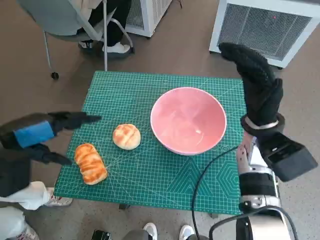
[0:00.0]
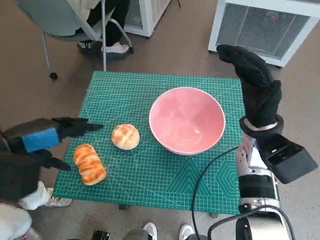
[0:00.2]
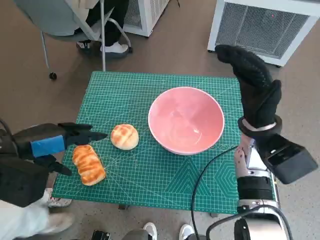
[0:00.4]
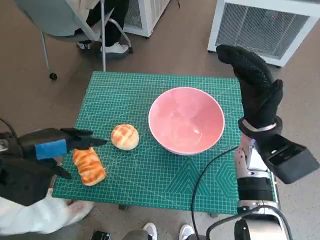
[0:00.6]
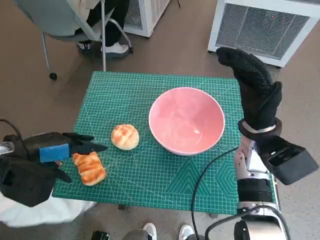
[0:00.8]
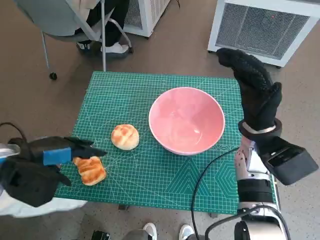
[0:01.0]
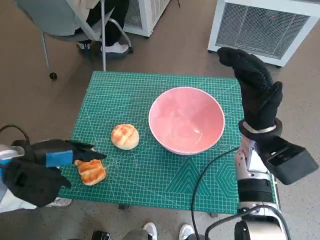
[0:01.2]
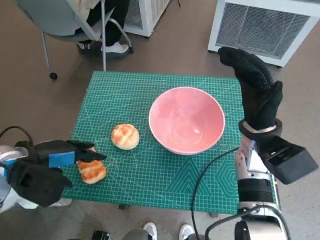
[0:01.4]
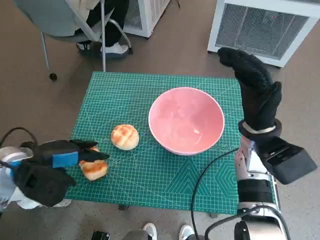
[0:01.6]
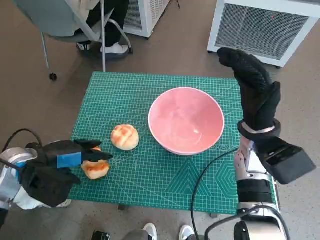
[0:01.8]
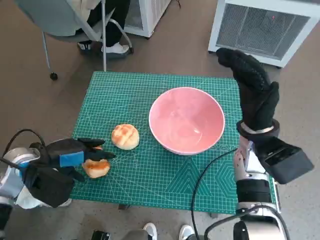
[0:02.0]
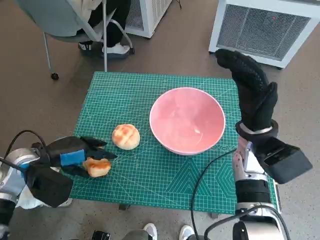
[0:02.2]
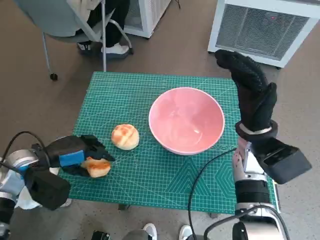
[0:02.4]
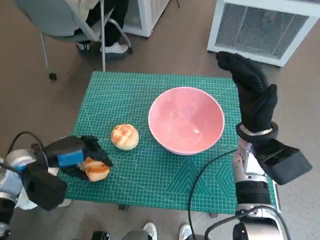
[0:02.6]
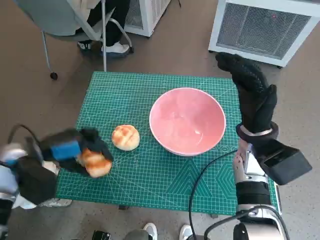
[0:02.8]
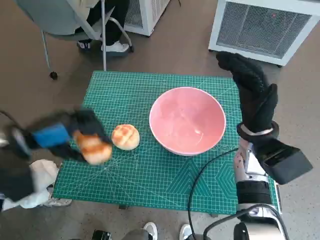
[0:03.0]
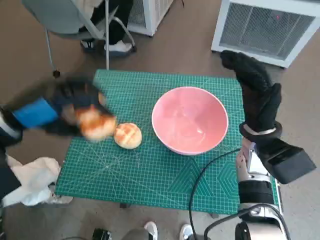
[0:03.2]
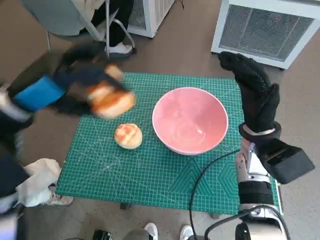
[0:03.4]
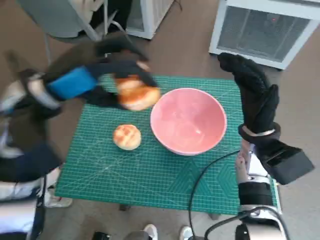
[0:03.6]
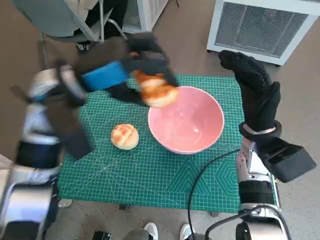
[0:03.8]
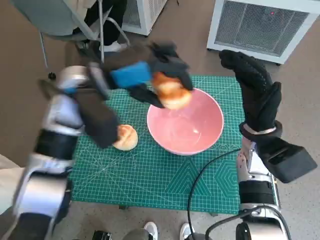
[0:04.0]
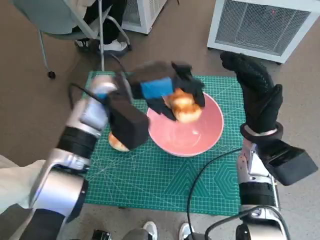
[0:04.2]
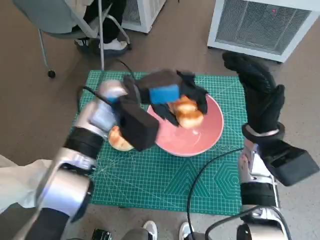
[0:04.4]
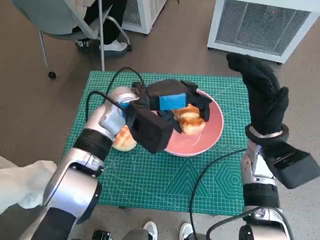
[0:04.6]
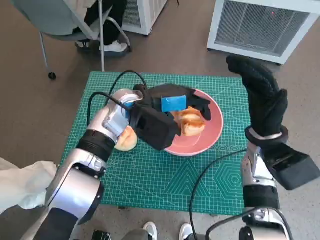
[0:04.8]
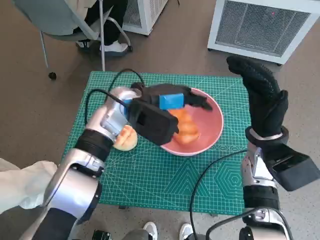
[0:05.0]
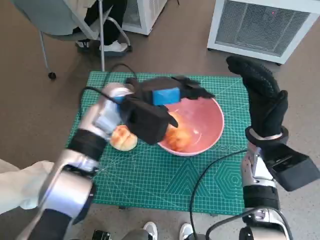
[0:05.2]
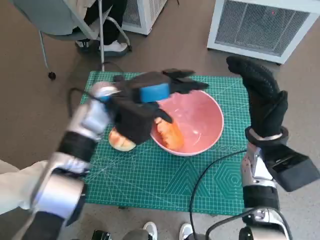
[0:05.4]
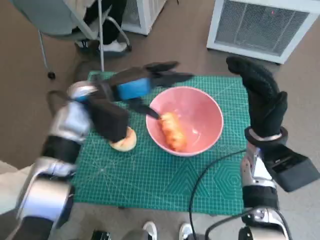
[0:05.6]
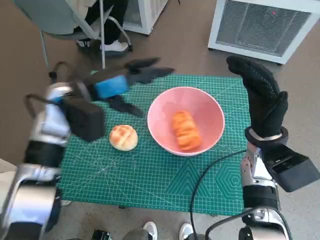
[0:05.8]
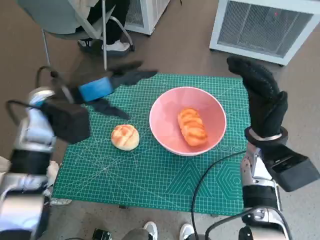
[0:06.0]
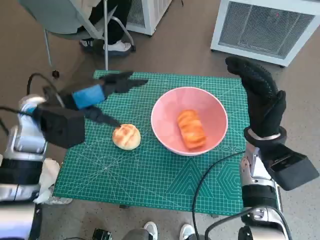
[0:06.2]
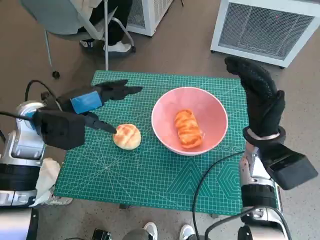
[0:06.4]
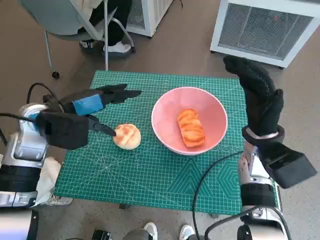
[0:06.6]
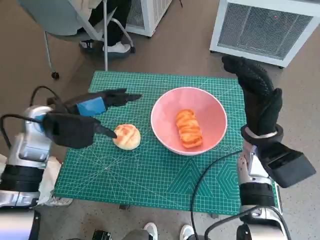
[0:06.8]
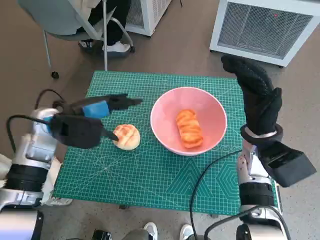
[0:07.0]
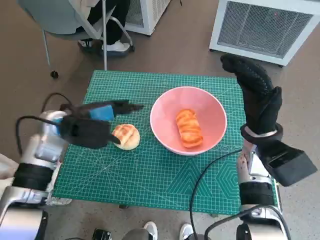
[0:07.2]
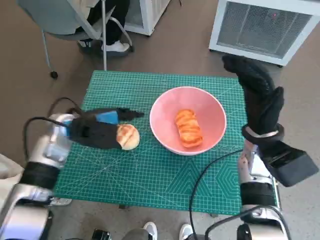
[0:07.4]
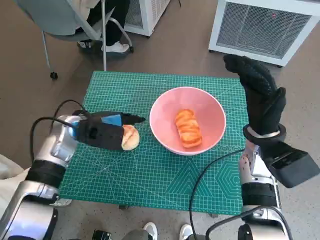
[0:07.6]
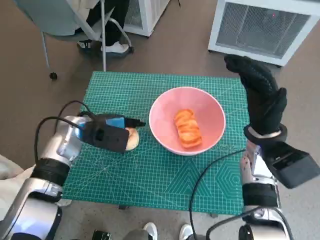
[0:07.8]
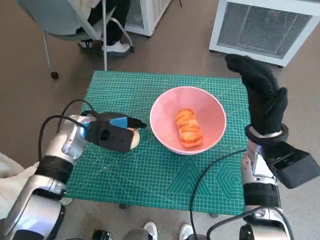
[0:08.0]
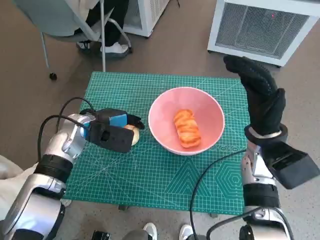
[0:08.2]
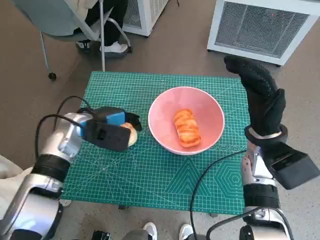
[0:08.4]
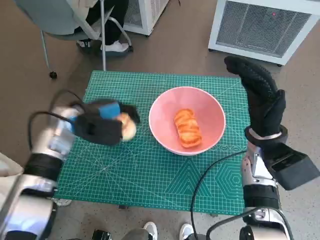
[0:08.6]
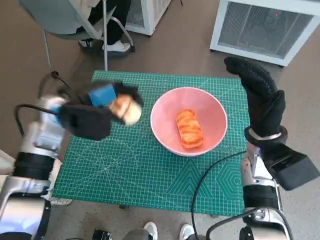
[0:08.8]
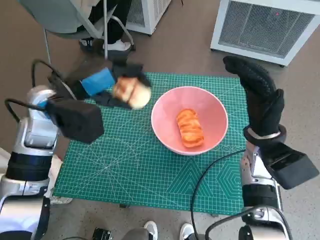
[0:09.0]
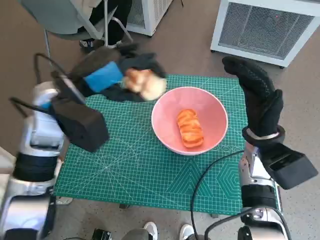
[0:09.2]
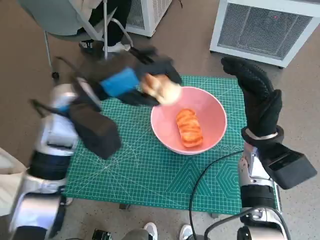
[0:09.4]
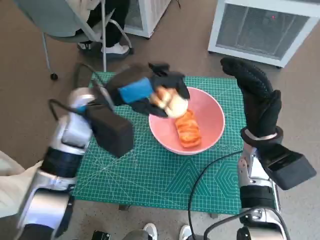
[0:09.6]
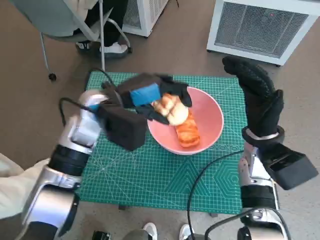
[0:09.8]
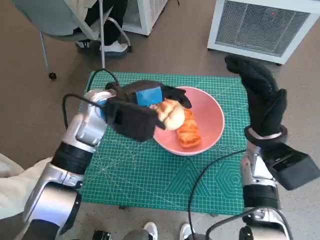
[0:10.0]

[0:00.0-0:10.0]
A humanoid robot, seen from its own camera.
Task of the whole recording: Push the bowl to the center of the table and put the bread into the bowl.
Step, 0:00.0 to 0:02.4: Grasp the long bread with left hand.
Step, 0:02.6 to 0:05.6: Place the long bread in pink bowl with left hand.
Step, 0:05.8 to 0:08.2: Grasp the round bread with left hand.
0:00.0 to 0:01.4: The left hand heads downward, covering some 5 cm.
0:02.8 to 0:04.2: The left hand travels to the right, upward and forward by approximately 20 cm.
0:04.2 to 0:05.8: The left hand moves to the left, some 5 cm.
0:05.8 to 0:07.2: The left hand ends up roughly 5 cm from where it was.
0:07.2 to 0:08.6: The hands move only a little.
0:08.6 to 0:10.0: The left hand moves to the right and upward, about 10 cm.

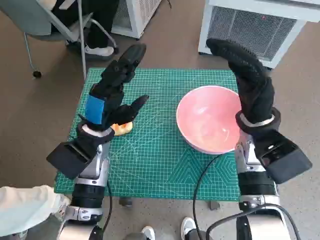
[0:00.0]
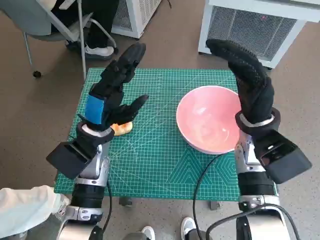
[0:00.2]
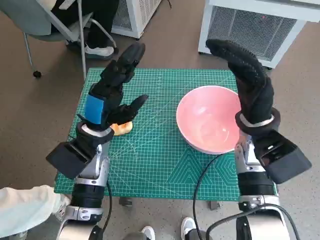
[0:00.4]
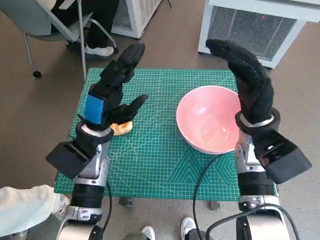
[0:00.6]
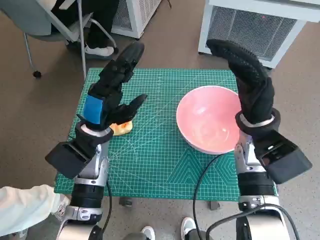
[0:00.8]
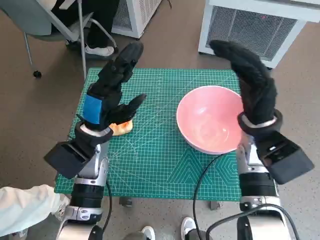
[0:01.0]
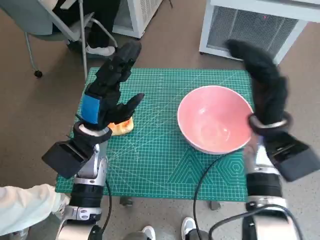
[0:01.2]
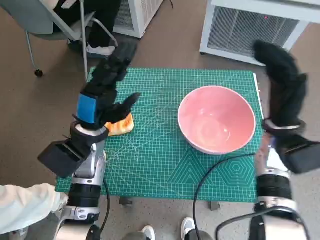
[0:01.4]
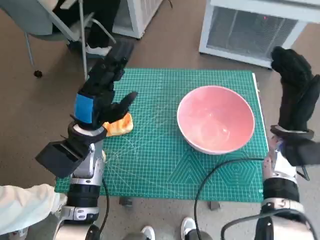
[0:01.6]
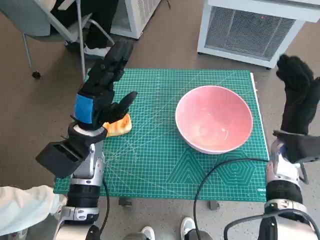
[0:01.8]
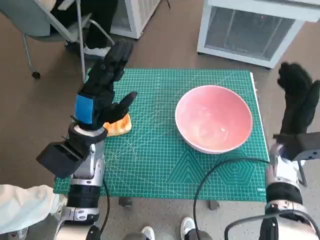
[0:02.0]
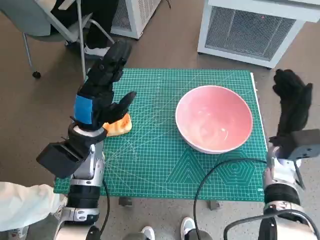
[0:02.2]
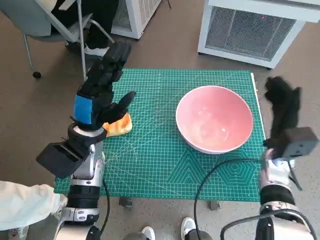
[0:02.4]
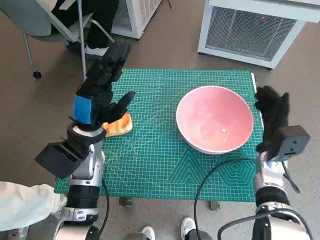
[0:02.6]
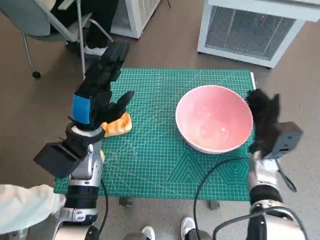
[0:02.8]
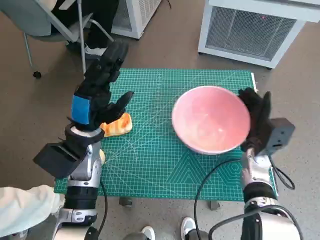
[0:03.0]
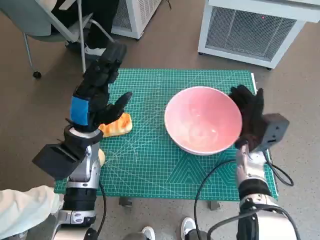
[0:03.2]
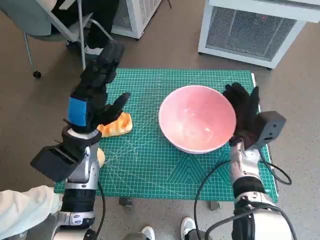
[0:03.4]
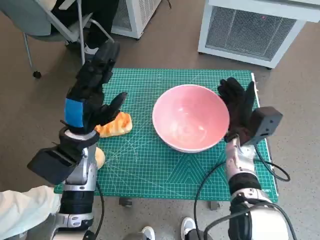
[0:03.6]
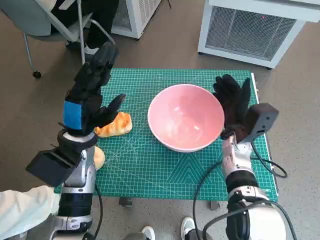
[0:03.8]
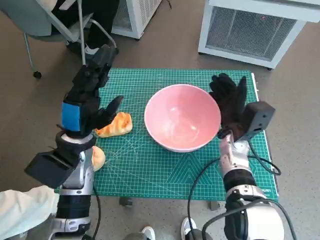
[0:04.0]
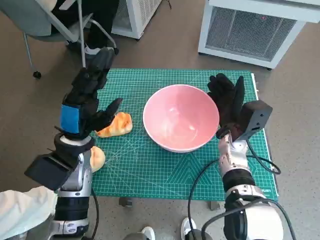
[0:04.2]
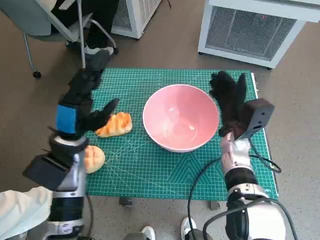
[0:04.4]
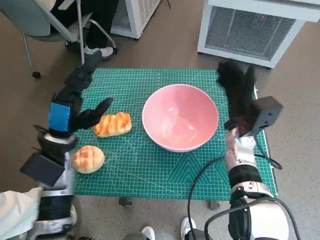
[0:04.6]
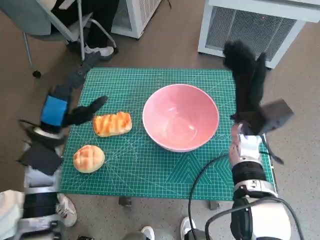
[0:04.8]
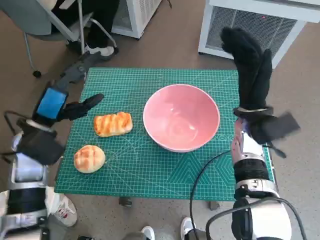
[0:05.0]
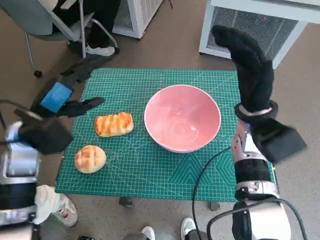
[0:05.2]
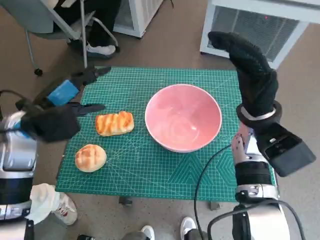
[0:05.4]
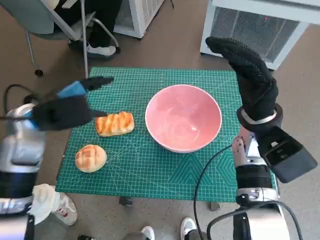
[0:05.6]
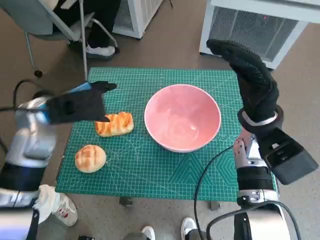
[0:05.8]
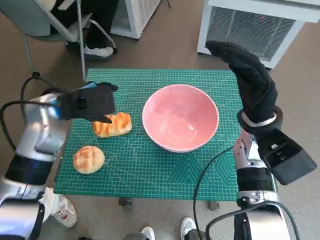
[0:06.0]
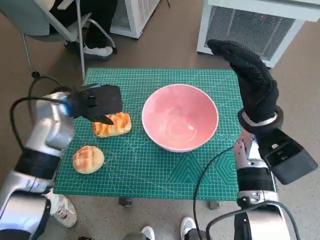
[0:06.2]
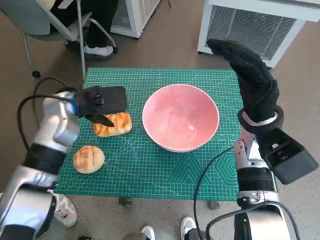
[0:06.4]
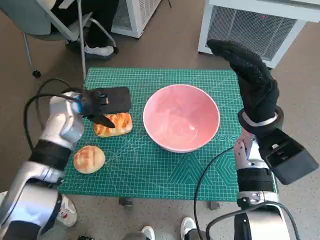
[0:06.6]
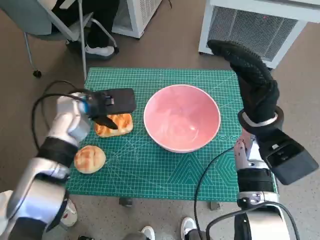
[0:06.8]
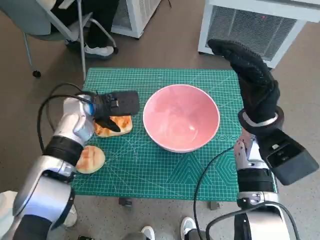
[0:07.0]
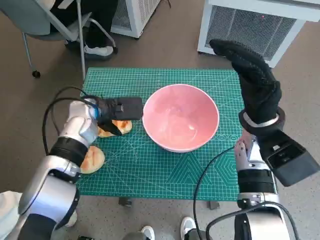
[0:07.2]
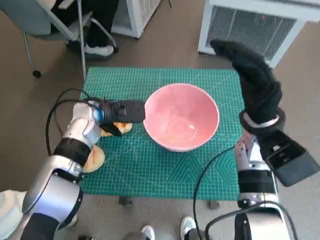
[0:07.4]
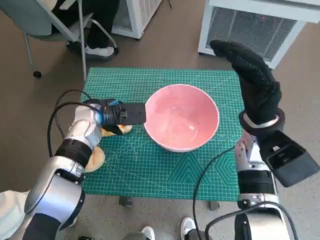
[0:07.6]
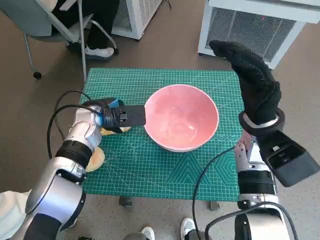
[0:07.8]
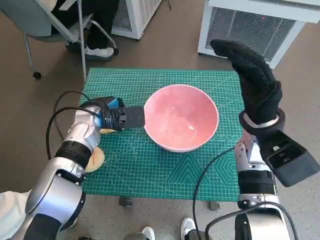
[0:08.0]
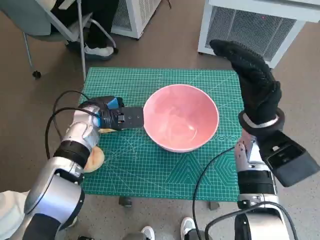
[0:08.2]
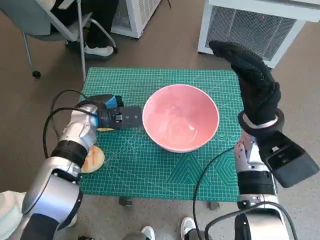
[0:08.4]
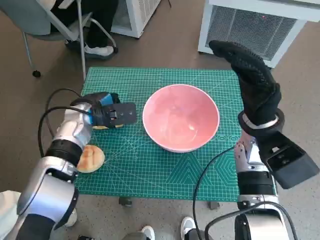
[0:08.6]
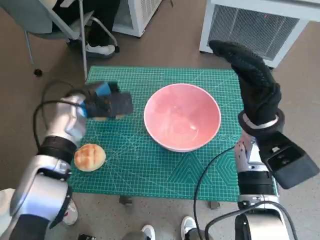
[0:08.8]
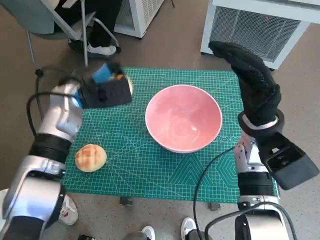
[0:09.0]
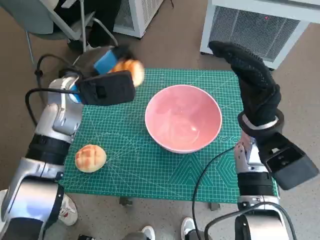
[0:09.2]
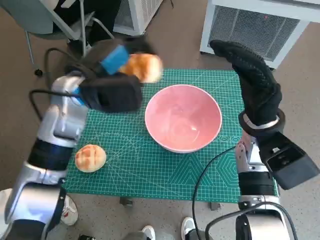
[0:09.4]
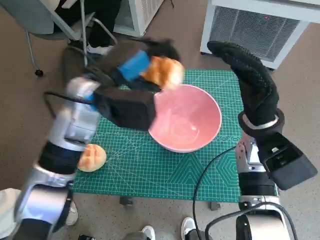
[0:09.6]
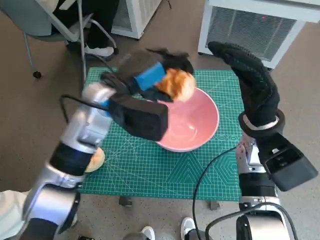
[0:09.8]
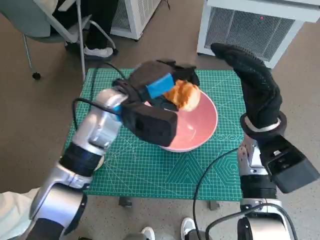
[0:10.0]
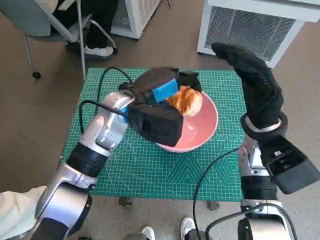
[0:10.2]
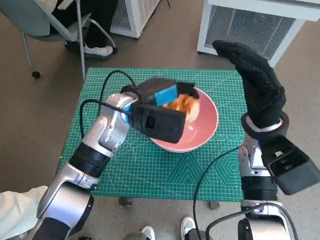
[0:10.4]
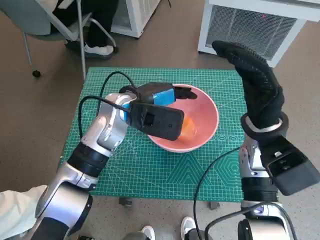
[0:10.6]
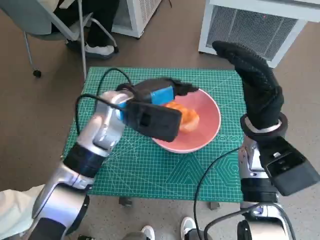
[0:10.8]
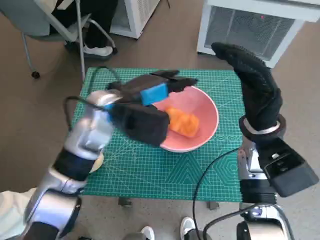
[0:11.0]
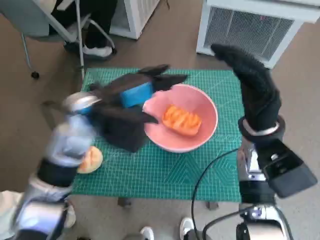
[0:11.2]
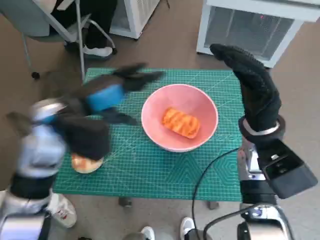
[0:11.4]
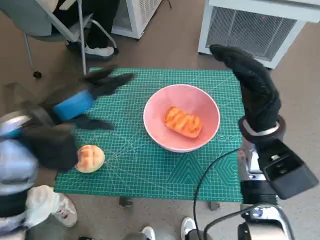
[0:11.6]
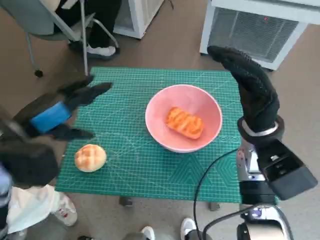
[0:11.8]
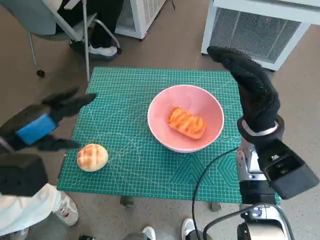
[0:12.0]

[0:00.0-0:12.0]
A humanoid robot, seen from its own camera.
Task of the whole recording: Push the bowl to the center of the table and put the bread into the bowl.
Step, 0:00.0 to 0:04.4: Move the pink bowl to the center of table with right hand.
Step, 0:04.8 to 0:08.2: Grasp the long bread with left hand.
Step, 0:08.4 to 0:10.8: Place the long bread in pink bowl with left hand.
0:01.6 to 0:03.0: The right hand is displaced downward by some 10 cm.
0:03.0 to 0:04.4: The right hand goes some 5 cm to the left.
0:04.4 to 0:06.0: The left hand is displaced upward and forward by approximately 10 cm. Meanwhile the right hand heads upward, covering roughly 10 cm.
0:06.0 to 0:07.6: The left hand heads downward, covering roughly 10 cm.
0:07.6 to 0:09.0: The left hand ends up some 5 cm from where it was.
0:09.0 to 0:10.4: The left hand heads to the right, covering approximately 10 cm.
0:10.4 to 0:12.0: The left hand goes about 20 cm to the left and backward.
